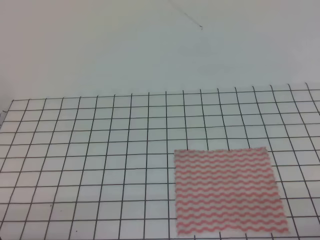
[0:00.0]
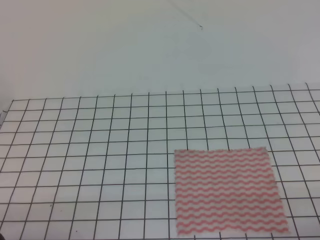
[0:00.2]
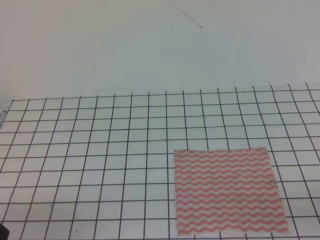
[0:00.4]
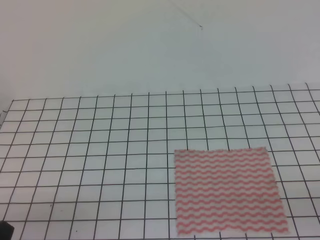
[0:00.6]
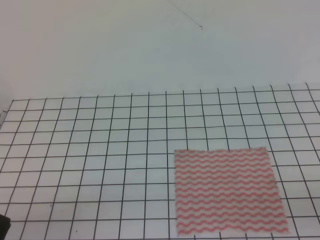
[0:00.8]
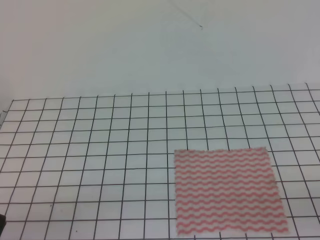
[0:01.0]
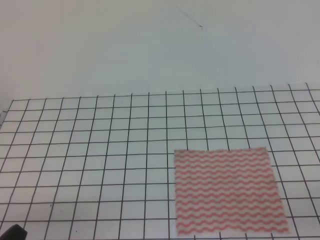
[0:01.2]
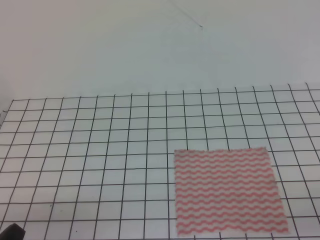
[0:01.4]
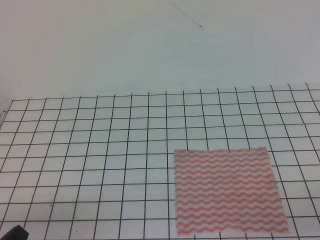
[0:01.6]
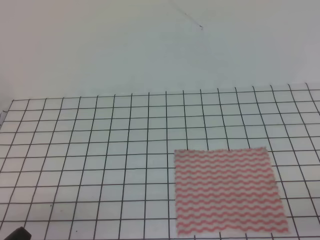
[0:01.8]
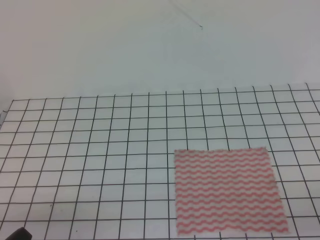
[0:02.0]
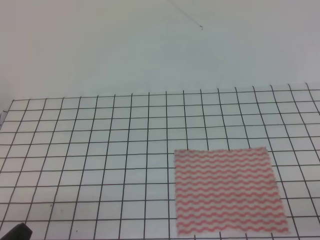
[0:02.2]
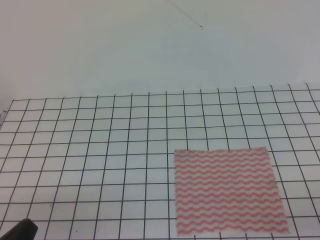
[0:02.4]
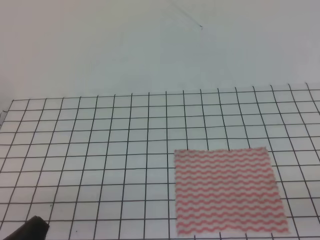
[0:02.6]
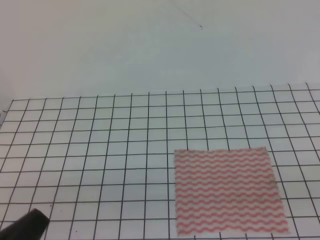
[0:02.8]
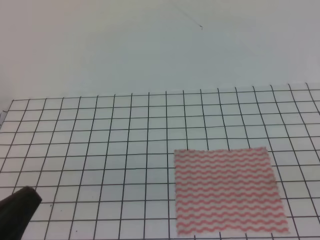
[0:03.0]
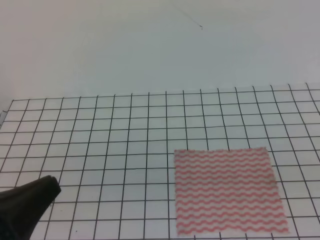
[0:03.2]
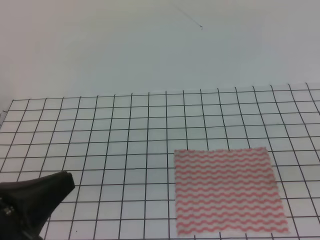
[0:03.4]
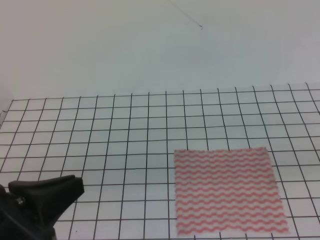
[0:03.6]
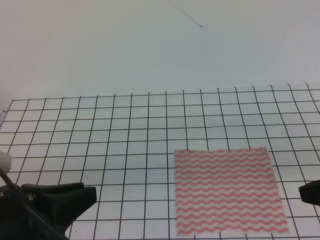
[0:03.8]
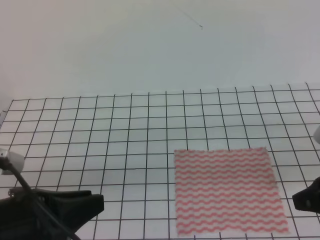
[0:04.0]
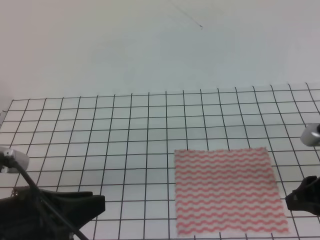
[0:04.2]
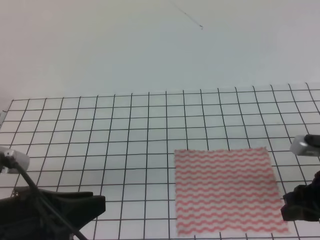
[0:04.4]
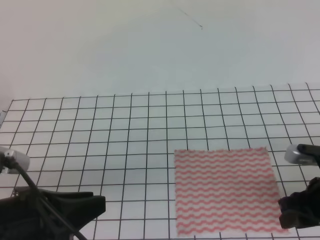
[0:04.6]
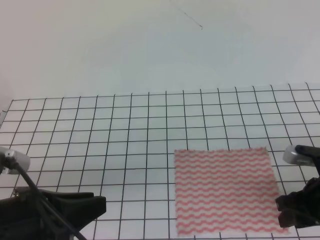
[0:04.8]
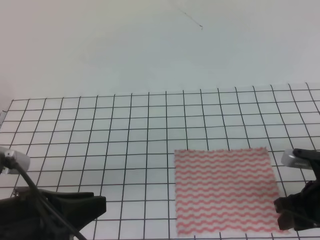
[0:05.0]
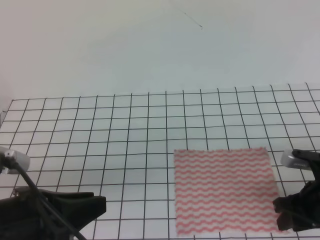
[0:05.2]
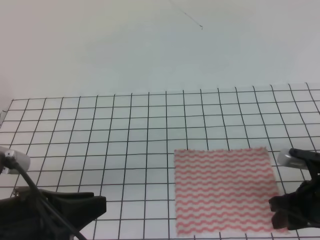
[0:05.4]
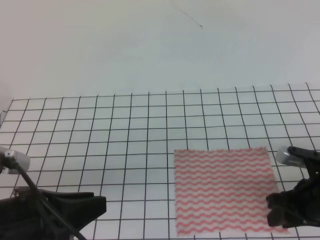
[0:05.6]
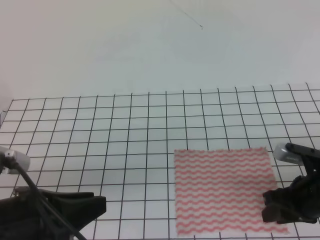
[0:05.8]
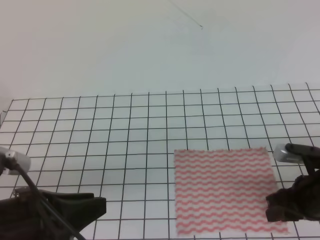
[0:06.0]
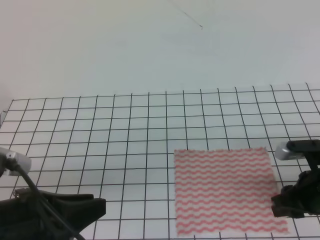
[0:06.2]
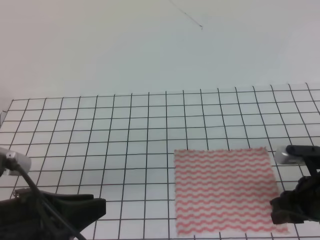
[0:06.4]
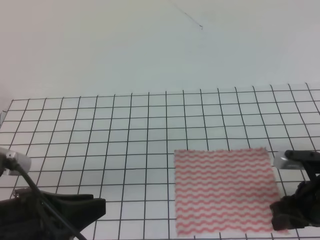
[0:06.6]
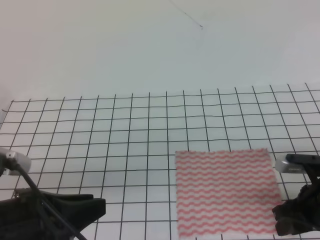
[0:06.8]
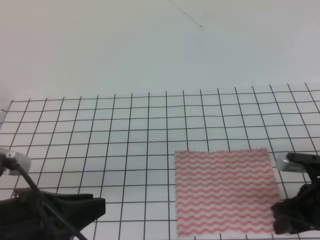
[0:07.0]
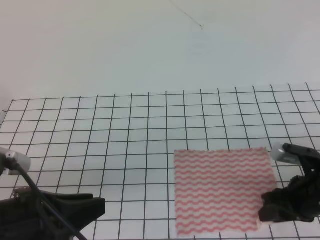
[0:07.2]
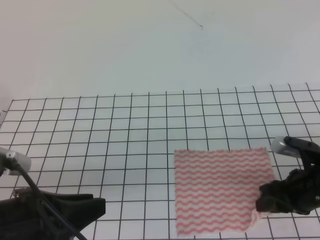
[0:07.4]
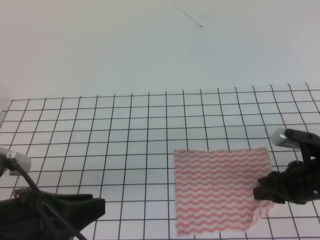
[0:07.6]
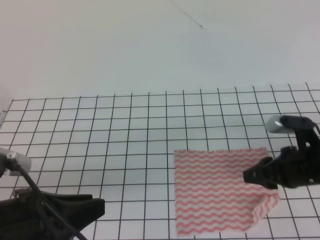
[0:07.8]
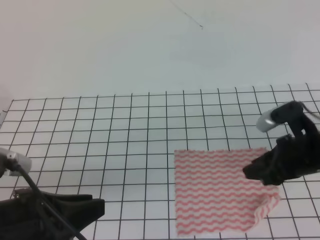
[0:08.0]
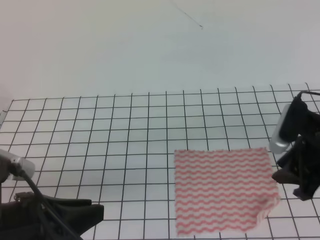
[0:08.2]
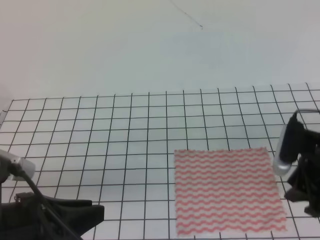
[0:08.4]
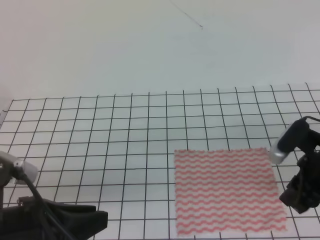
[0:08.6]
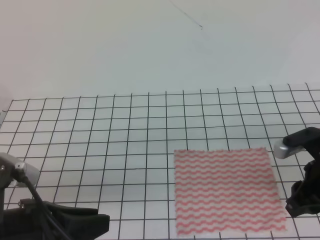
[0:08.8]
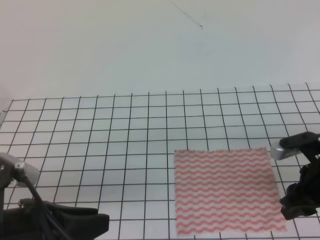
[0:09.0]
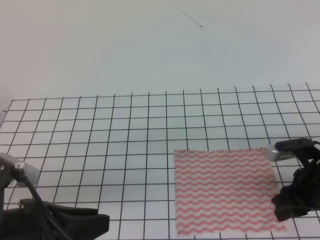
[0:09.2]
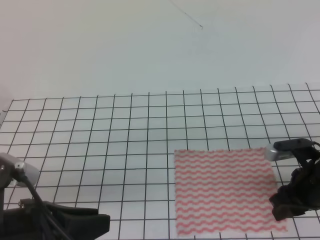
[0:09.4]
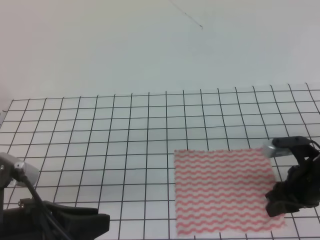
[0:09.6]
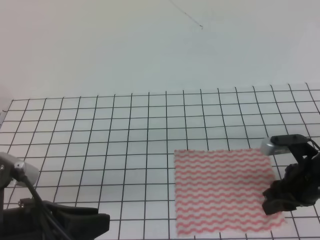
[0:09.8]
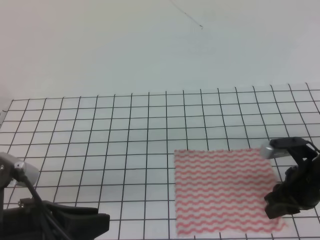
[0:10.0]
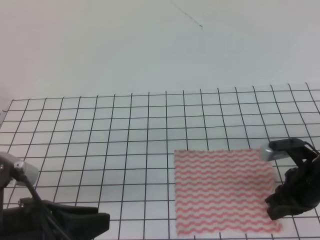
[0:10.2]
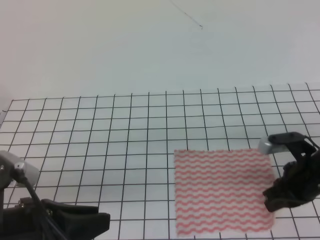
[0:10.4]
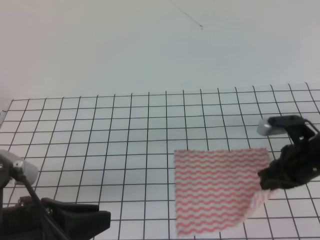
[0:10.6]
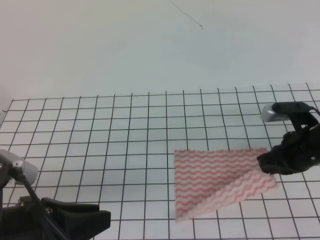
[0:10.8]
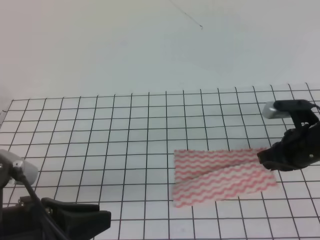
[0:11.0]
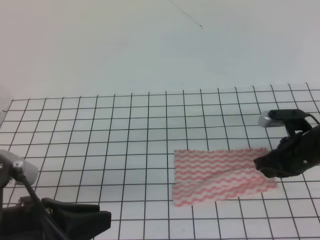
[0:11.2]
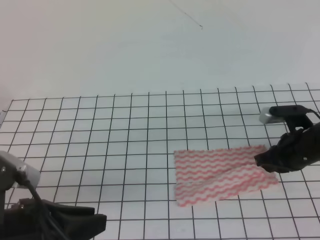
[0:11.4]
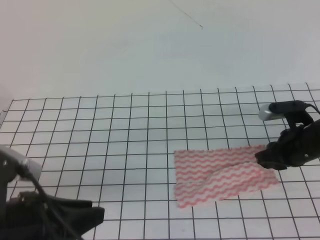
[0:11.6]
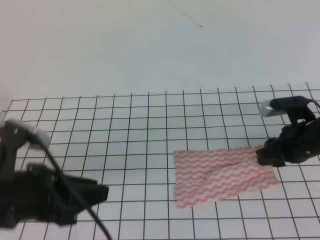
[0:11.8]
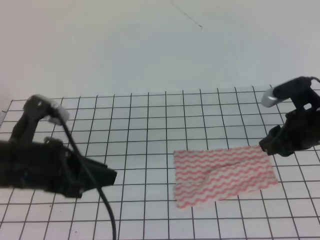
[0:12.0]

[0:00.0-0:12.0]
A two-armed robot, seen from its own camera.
0:01.6 to 0:03.0: The left gripper is displaced upward by approximately 10 cm.
0:03.0 to 0:04.4: The right gripper moves forward and downward, about 20 cm, and opens up; the left gripper travels forward by roughly 10 cm, and opens.
0:04.4 to 0:06.0: The right gripper is displaced downward by about 5 cm.
0:06.0 to 0:07.6: There are only small adjustments of the grippers.
0:09.0 to 0:10.4: The right gripper closes up.
0:10.4 to 0:12.0: The right gripper changes place by some 5 cm, and opens its fingers. The left gripper moves forward, roughly 10 cm.

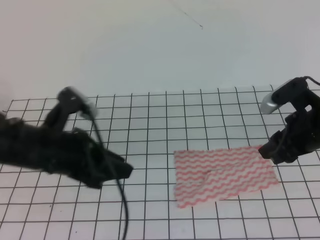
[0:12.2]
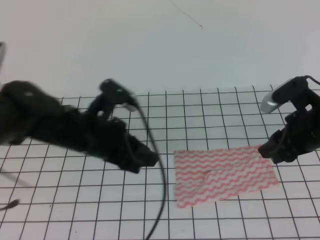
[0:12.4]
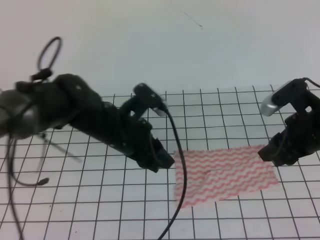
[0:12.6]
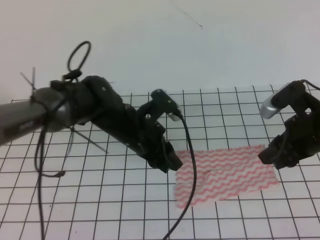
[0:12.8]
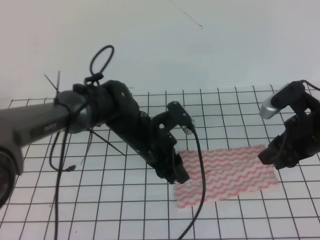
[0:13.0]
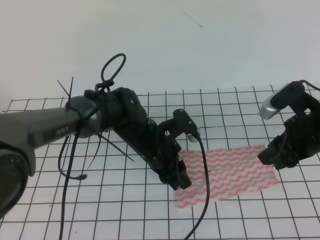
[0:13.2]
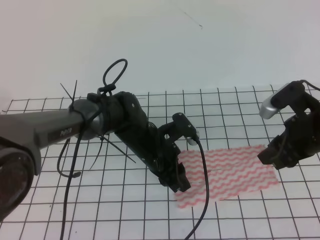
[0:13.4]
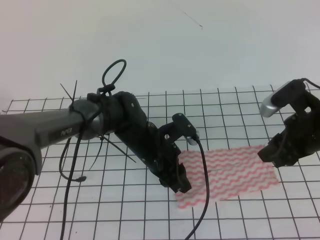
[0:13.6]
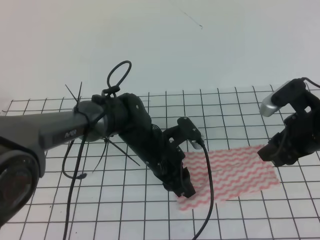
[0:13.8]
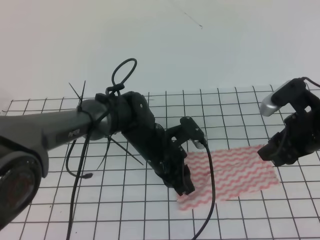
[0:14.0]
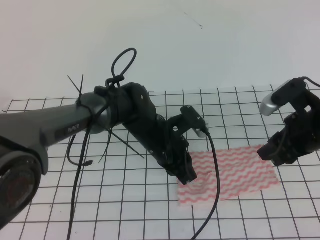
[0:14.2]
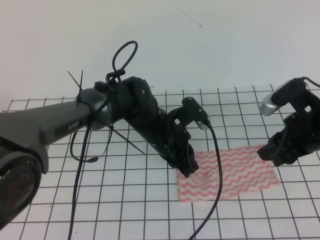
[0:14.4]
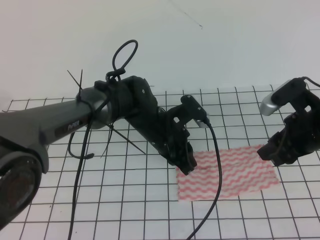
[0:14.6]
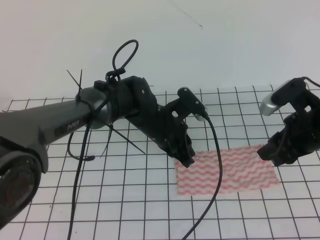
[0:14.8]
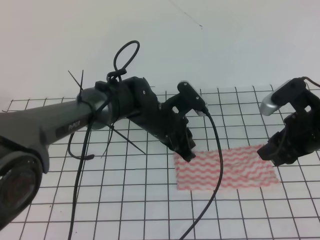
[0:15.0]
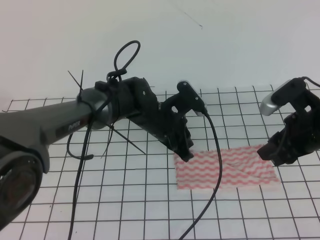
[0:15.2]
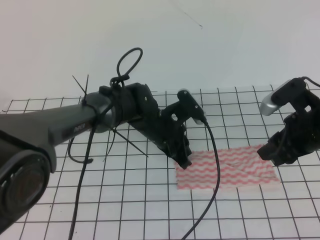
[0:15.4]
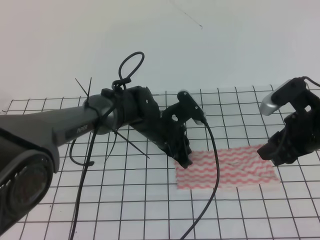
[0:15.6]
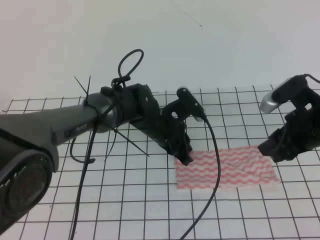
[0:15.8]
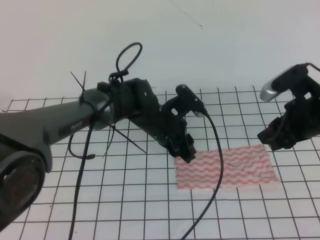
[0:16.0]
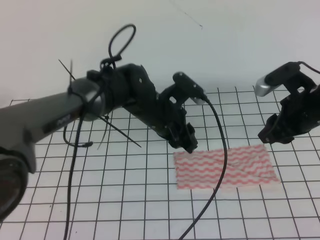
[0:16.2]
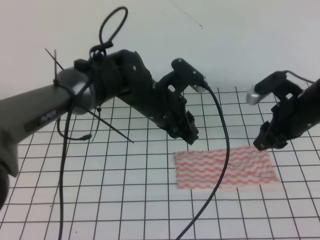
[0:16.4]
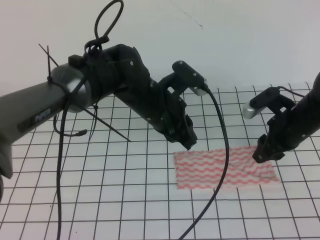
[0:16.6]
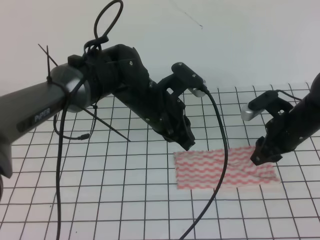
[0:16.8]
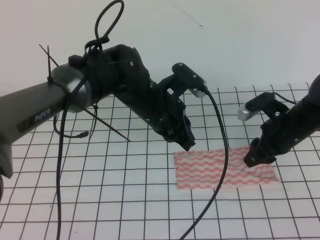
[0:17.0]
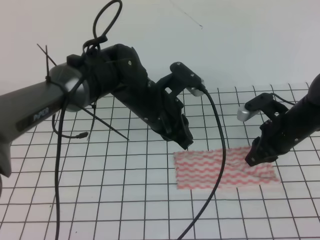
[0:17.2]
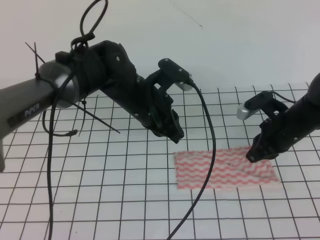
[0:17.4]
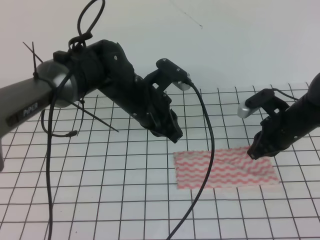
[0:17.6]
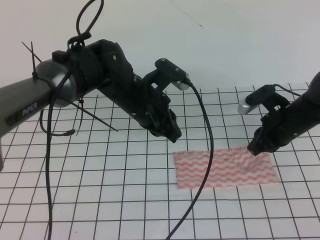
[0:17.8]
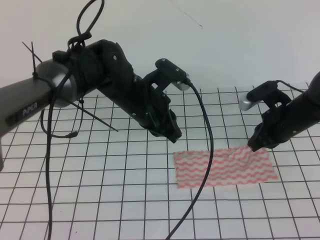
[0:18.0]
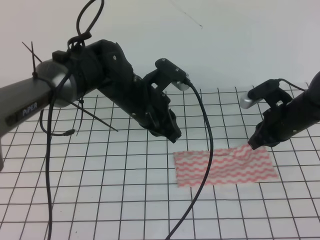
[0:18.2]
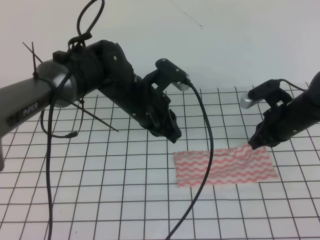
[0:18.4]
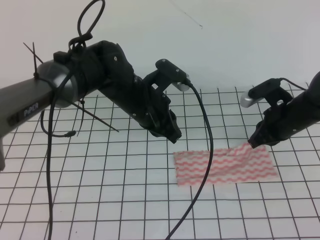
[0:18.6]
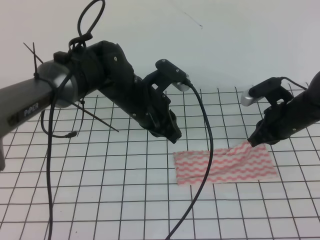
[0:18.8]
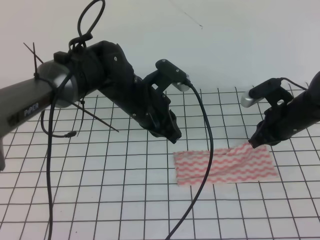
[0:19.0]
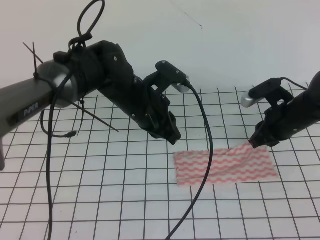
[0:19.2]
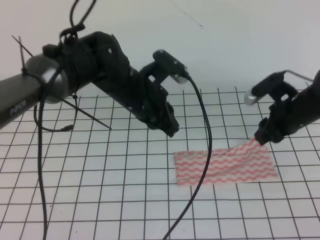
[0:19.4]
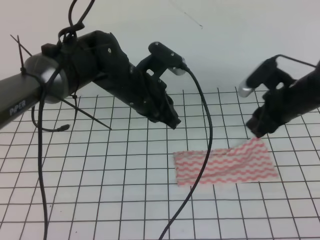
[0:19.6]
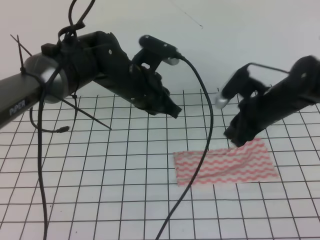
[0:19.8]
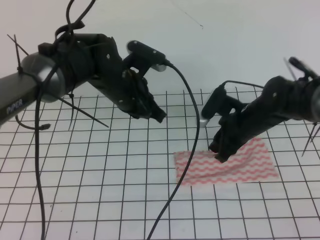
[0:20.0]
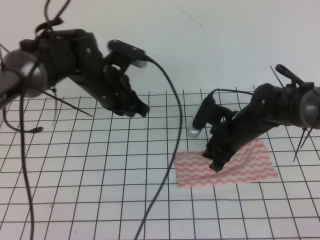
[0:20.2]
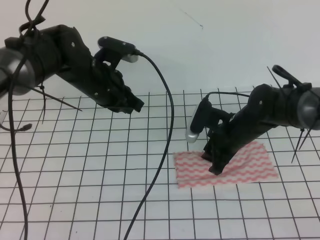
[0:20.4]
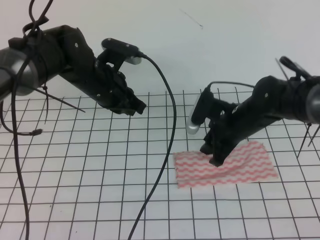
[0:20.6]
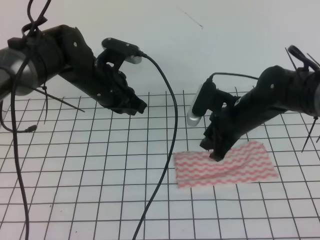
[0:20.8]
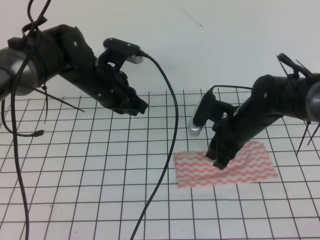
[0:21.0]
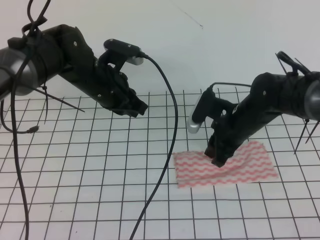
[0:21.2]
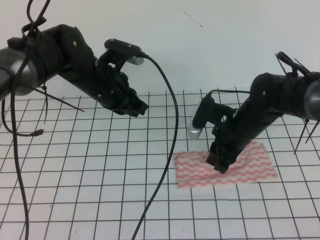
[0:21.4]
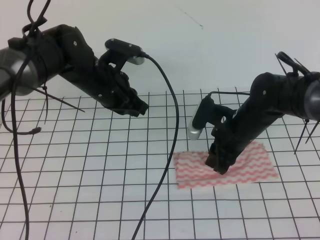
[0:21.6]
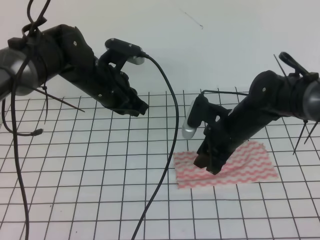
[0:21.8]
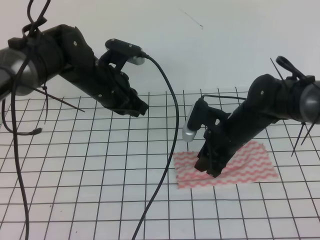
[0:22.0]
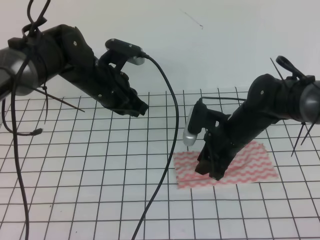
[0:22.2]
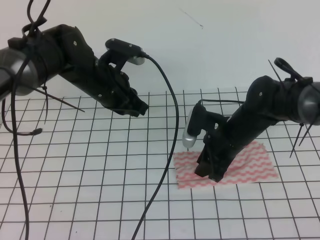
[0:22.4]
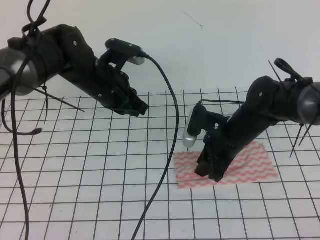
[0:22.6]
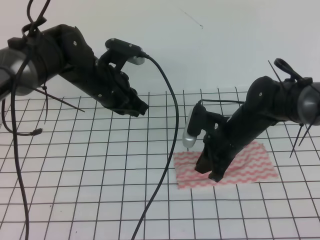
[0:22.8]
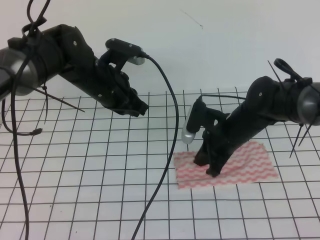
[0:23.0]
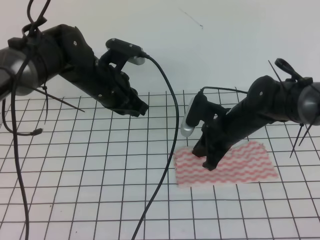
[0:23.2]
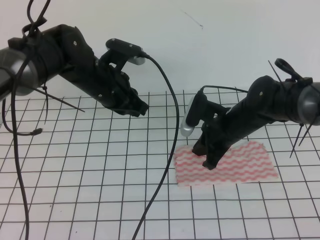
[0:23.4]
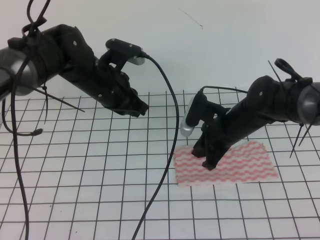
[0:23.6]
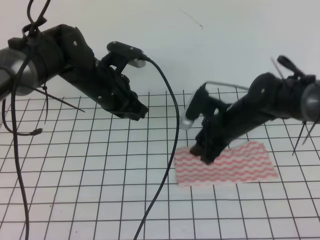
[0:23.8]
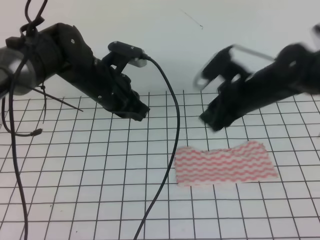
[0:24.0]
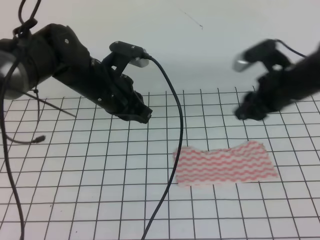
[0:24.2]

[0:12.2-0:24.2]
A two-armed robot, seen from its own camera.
0:12.2 to 0:13.8: The left gripper is displaced to the right, downward and forward by approximately 20 cm.
0:13.8 to 0:15.2: The left gripper changes place by some 5 cm, and closes.
0:15.2 to 0:16.6: The left gripper goes about 5 cm upward, and opens and closes again, while the right gripper goes approximately 5 cm forward.
0:16.6 to 0:18.2: The right gripper closes its fingers.
0:18.2 to 0:19.8: The right gripper opens up.
0:19.8 to 0:21.2: The grippers both shift to the left by some 5 cm.
0:21.2 to 0:22.6: The grippers make only small movements.
0:22.6 to 0:24.2: The right gripper moves upward and to the right, about 10 cm, and opens up.
